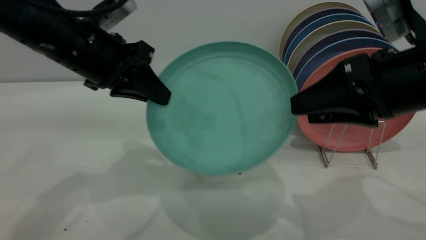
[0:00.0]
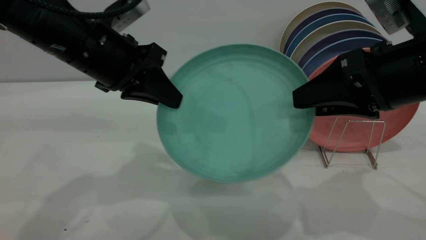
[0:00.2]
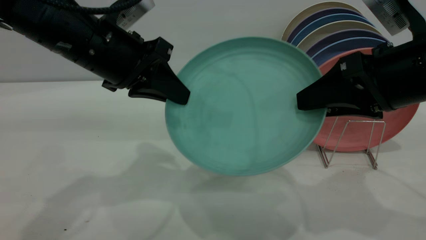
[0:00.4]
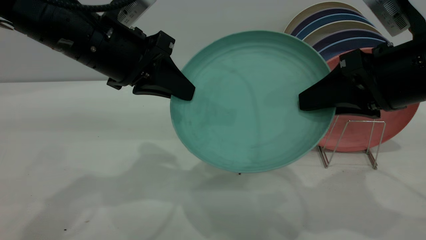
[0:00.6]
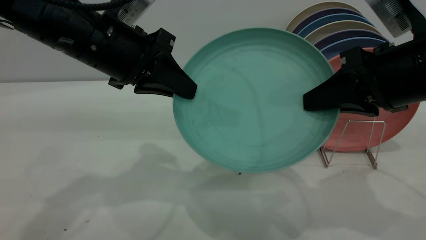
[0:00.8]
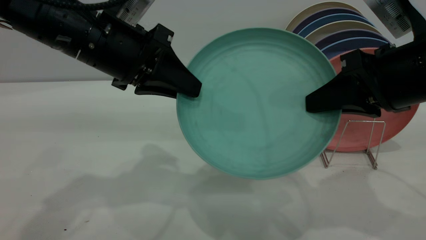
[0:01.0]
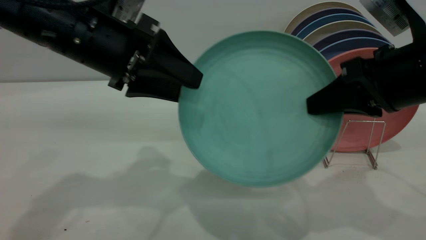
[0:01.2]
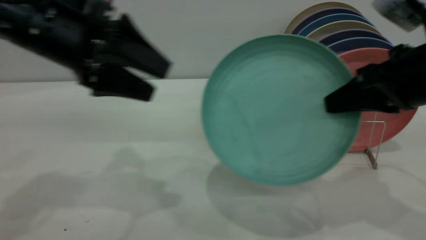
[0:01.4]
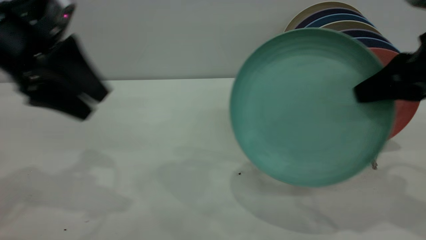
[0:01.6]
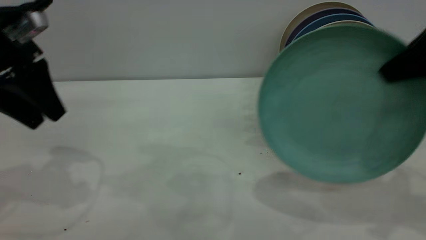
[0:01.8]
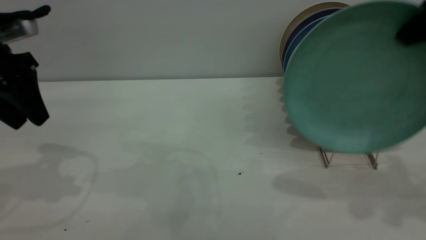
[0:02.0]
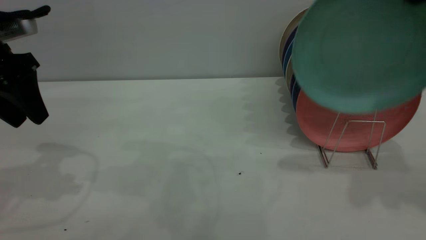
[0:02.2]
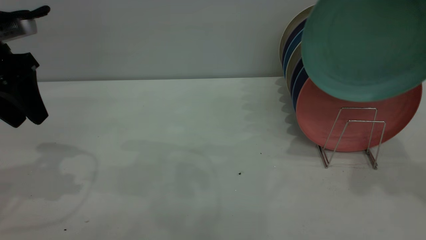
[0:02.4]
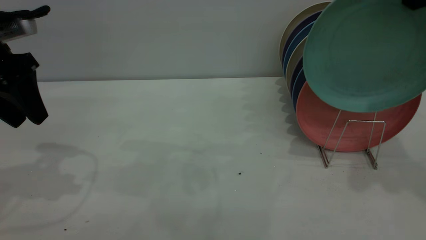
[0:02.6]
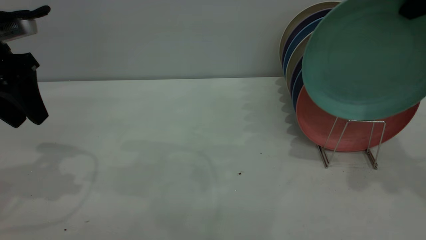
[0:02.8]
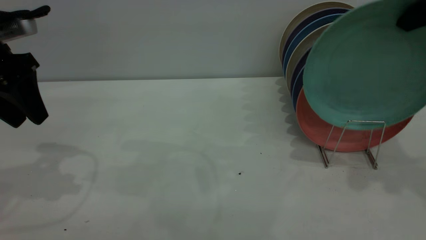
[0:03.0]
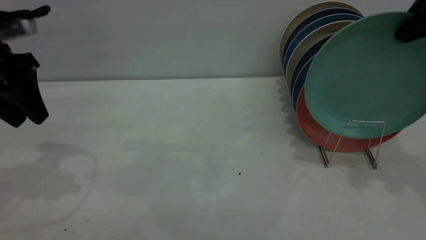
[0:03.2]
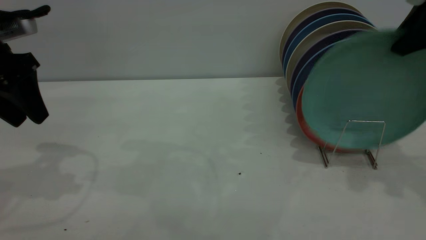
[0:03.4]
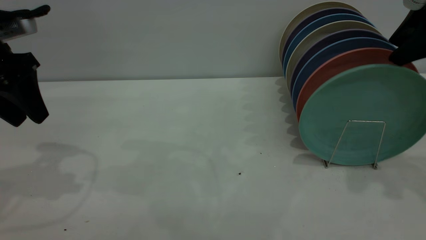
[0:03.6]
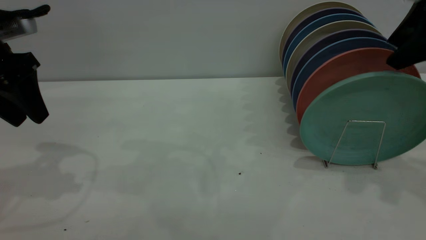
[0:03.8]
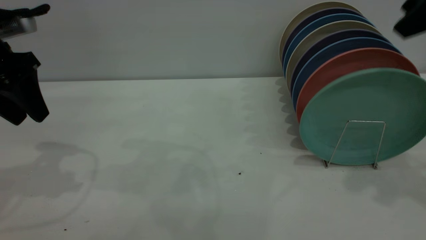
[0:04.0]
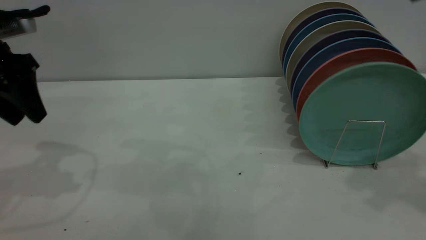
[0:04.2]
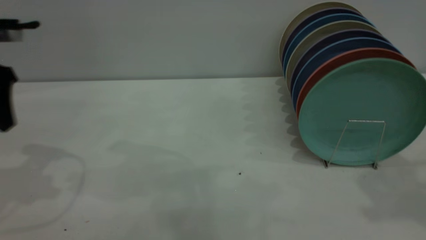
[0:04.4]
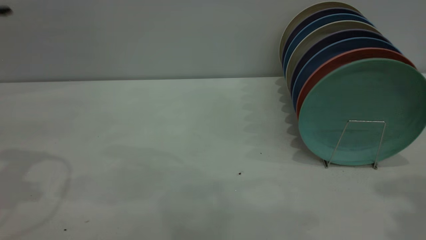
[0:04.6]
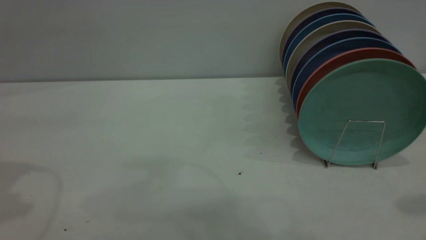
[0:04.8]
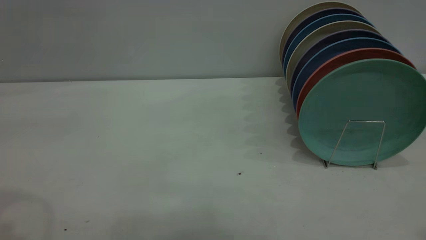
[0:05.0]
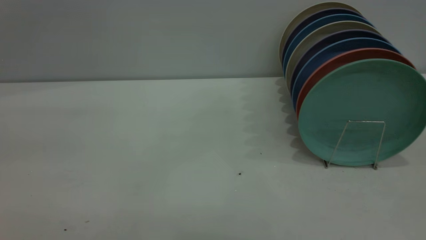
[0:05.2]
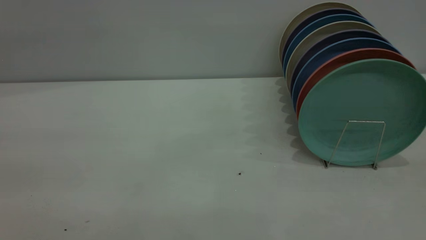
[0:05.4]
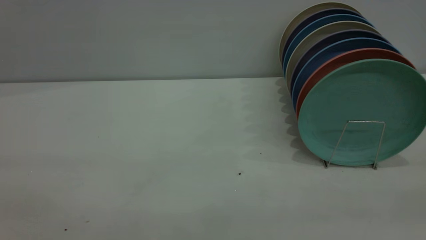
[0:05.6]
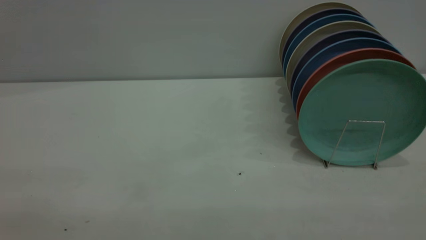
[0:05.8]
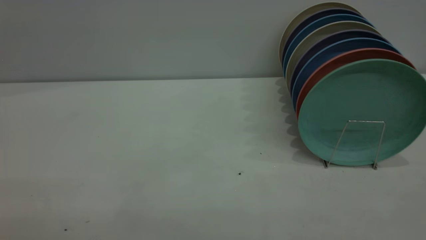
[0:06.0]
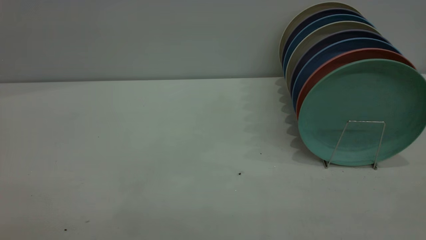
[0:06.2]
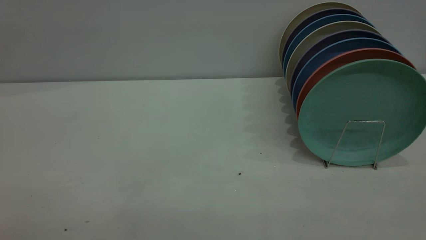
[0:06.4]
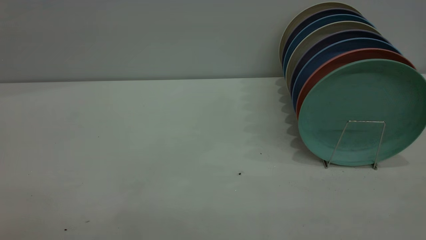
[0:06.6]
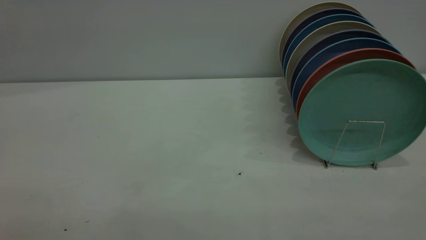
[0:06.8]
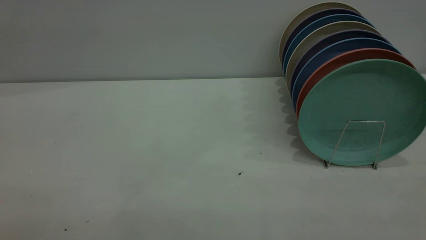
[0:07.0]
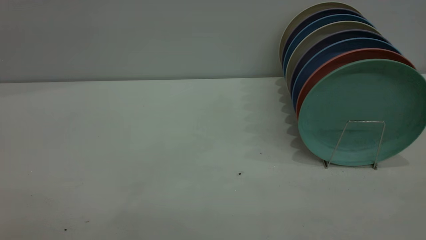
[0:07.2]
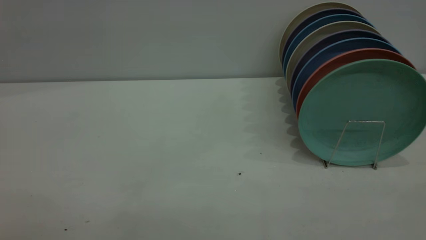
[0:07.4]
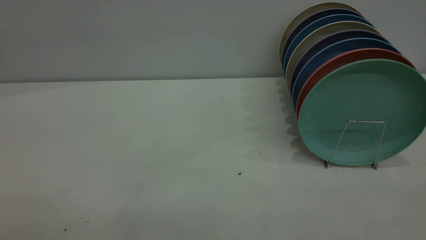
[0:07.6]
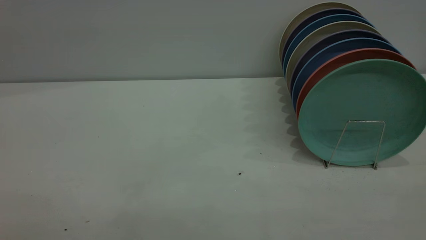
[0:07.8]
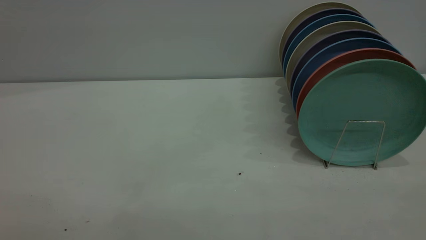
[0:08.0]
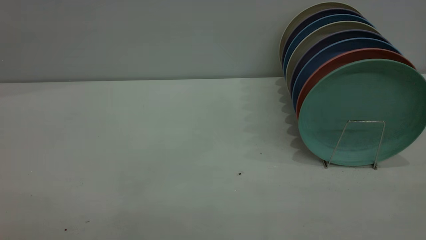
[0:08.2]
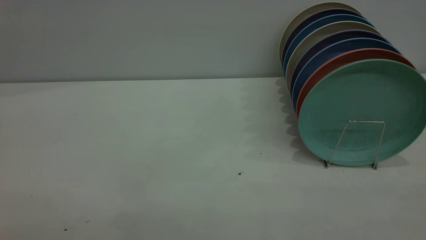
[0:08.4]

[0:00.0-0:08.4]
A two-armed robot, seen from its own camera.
Task of the whole recording: the left gripper grasp the green plate, the left gripper pass the green plate to the right gripper, and the right gripper place the green plate on the plate rack.
Step, 0:00.0 to 0:01.2: Pass the plate from the left gripper to the right gripper.
Step, 0:01.6 to 0:03.8: Place the plate on the shelf.
0:00.0 to 0:01.4: The right gripper closes up. Meanwhile the left gripper opens.
0:01.4 to 0:02.8: The left gripper shifts about 10 cm to the left, while the right gripper is displaced upward and forward by some 15 cm.
0:02.8 to 0:04.2: The right gripper goes roughly 5 cm upward, and opens its fingers.
0:04.2 to 0:05.6: The left gripper goes approximately 40 cm backward and upward.

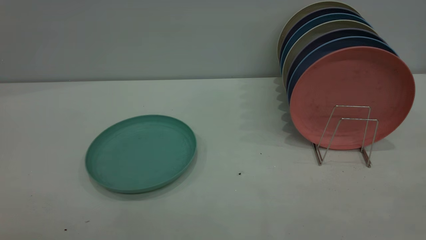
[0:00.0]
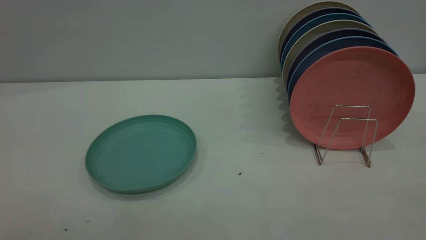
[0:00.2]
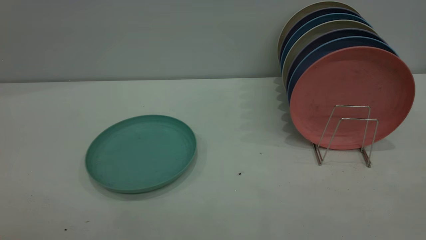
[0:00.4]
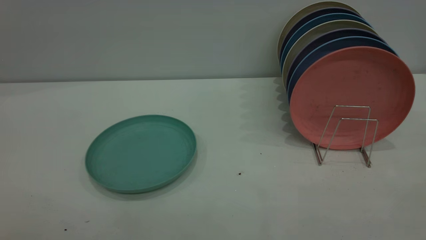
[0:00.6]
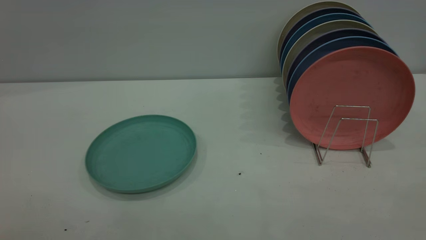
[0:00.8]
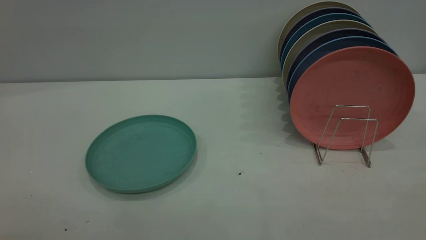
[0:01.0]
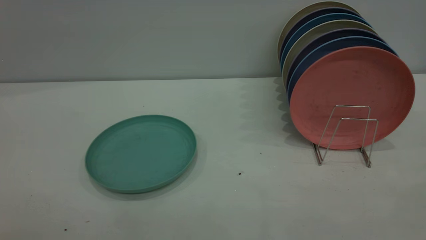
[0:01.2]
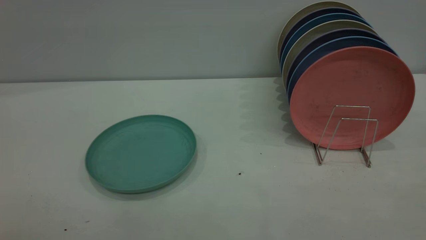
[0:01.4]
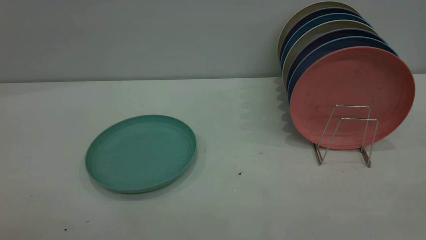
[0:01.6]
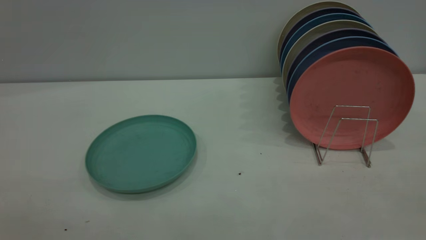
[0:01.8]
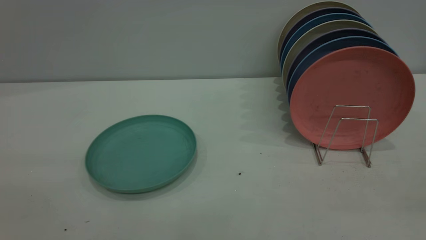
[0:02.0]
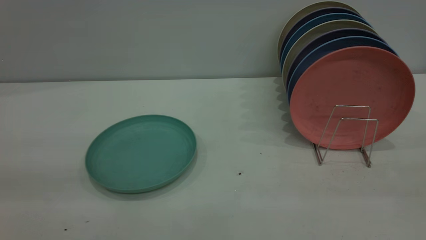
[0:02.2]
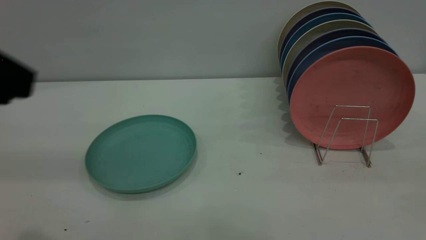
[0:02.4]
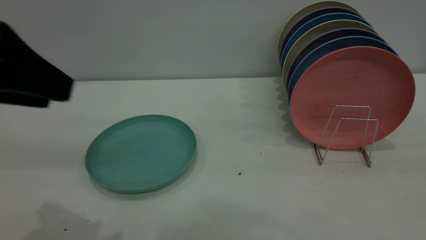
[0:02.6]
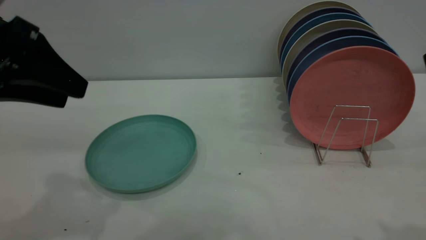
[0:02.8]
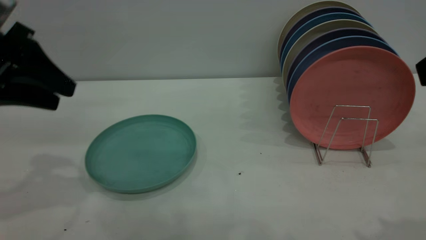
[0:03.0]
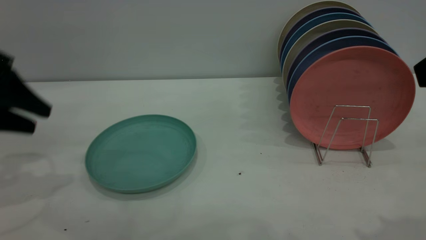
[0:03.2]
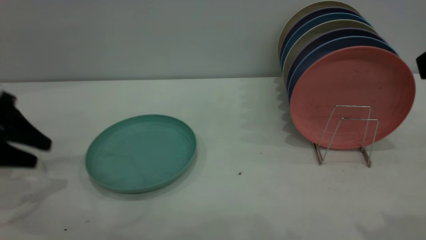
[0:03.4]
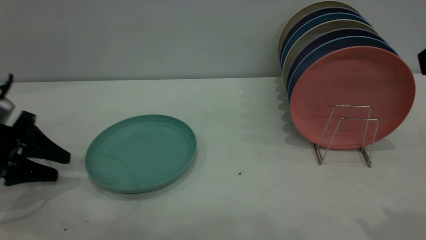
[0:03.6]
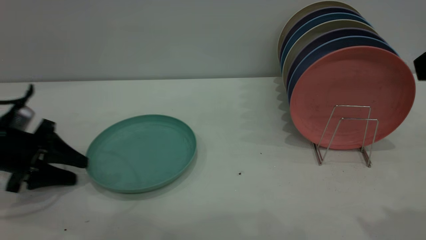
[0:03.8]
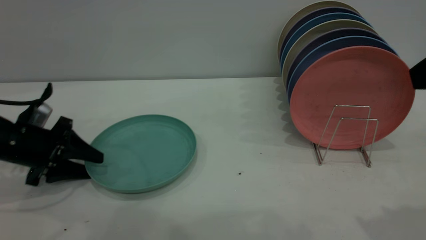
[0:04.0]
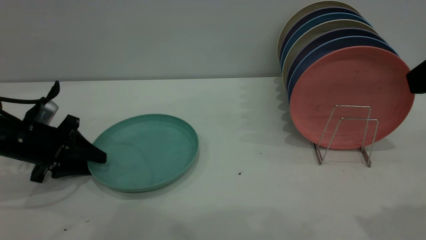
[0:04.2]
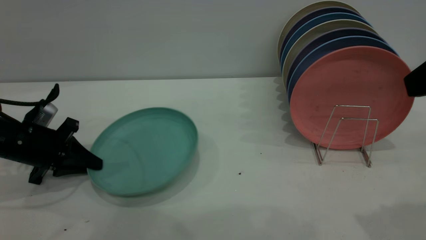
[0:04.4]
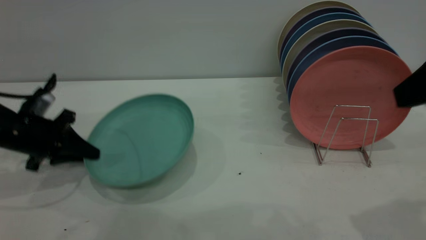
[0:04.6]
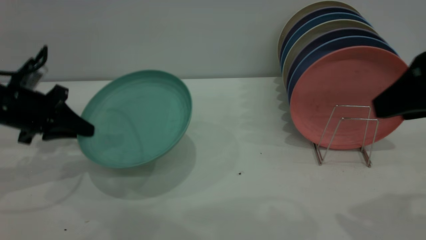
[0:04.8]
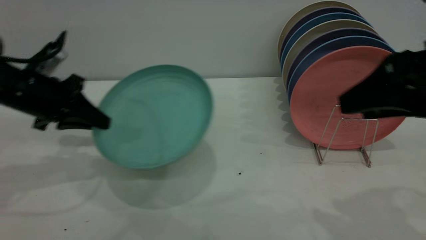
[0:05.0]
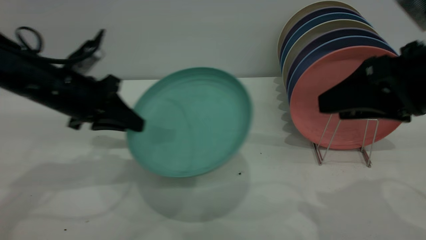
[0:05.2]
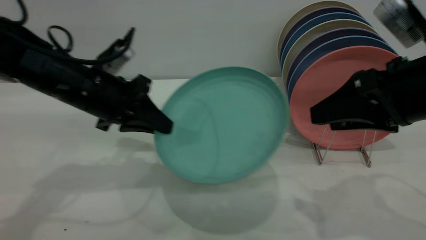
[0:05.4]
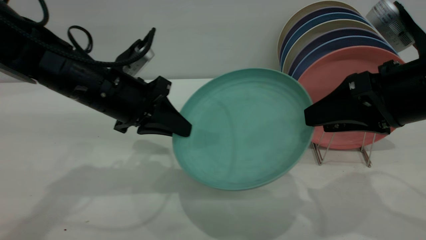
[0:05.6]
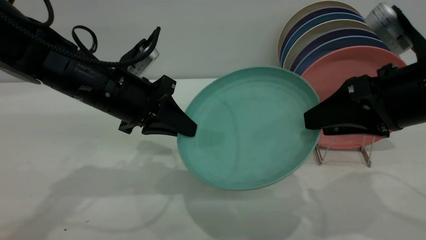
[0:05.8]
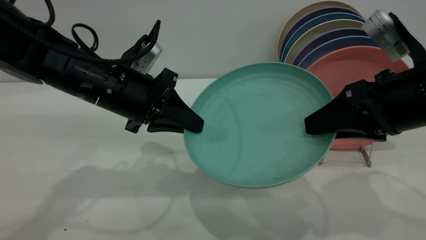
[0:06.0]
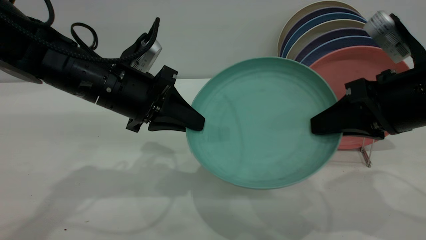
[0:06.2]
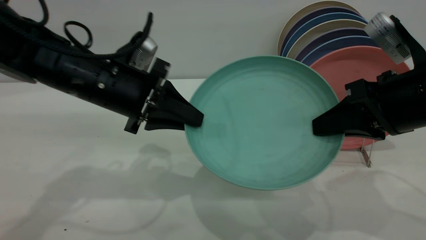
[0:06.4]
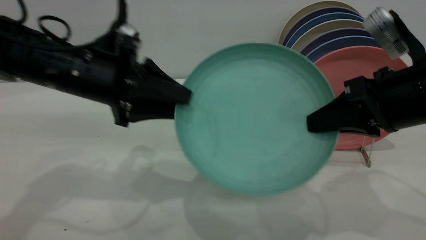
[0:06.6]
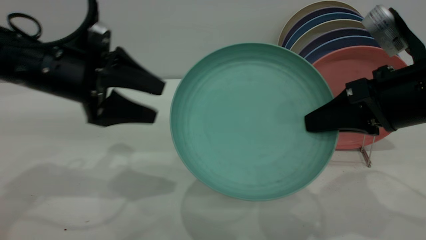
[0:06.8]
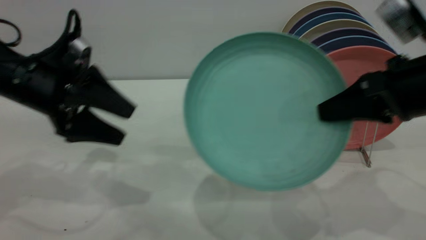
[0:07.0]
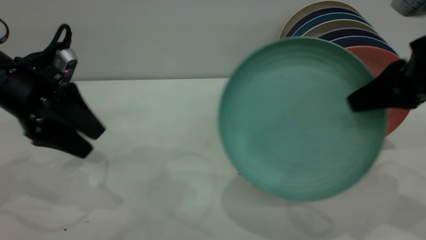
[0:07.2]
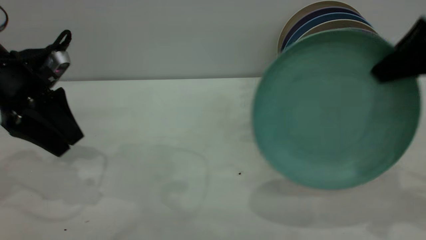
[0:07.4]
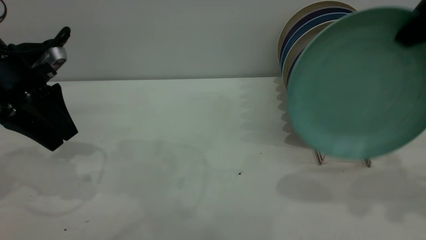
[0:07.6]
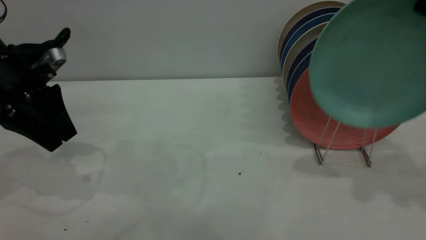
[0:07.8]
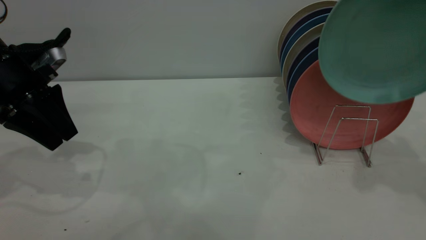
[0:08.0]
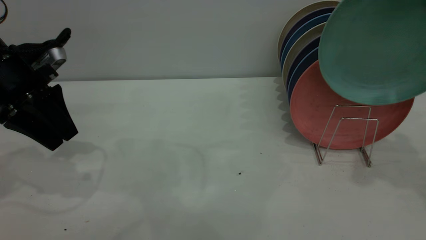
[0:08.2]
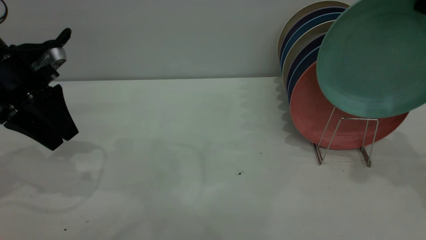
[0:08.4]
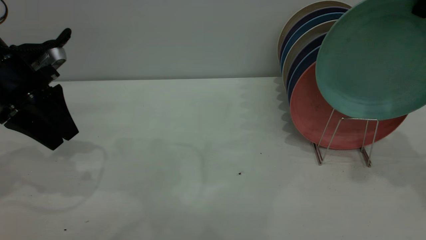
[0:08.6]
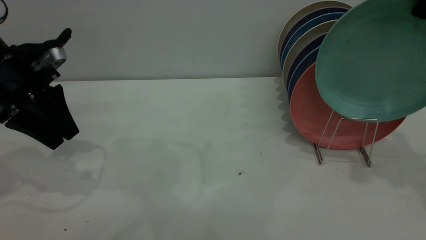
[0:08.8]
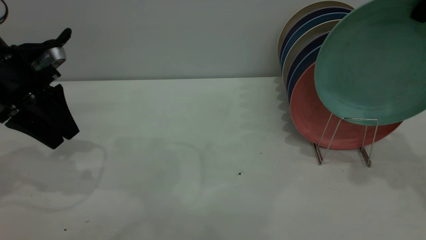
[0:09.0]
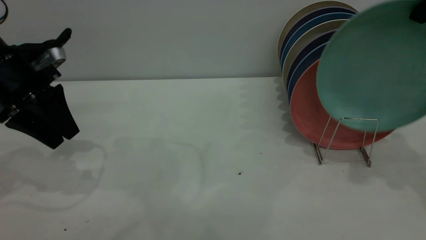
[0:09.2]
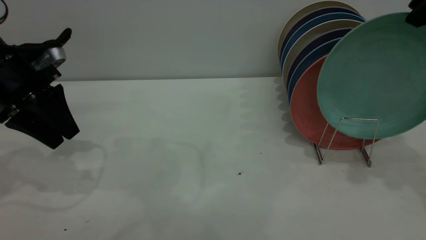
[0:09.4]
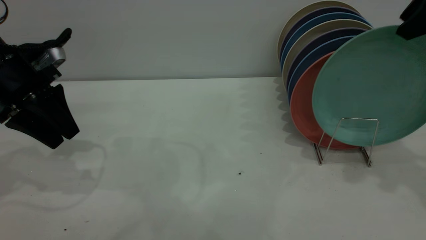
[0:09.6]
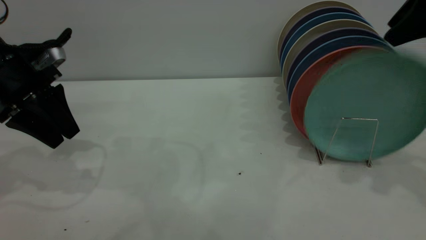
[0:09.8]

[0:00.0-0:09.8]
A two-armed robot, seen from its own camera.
Task of the whole recording: the left gripper grasp the green plate, the left gripper pass the green plate to the right gripper, and the right gripper place the green plate on the plate rack.
Step, 0:00.0 to 0:04.6: Pick up the plate with the left gripper.
Step, 0:04.8 to 0:06.8: Pass the plate from the left gripper to the right gripper.
0:00.0 to 0:01.4: Neither gripper changes place.
0:01.4 to 0:02.8: The left gripper shifts about 30 cm forward.
0:02.8 to 0:04.2: The left gripper heads downward, covering some 20 cm.
0:04.2 to 0:05.6: The right gripper heads downward and forward, covering some 10 cm. Meanwhile the left gripper goes about 20 cm to the right and upward, and closes its fingers.
0:05.6 to 0:07.0: The right gripper closes its fingers. Meanwhile the left gripper moves to the left, some 10 cm, and opens.
0:07.0 to 0:08.4: The right gripper heads upward, forward and to the right, covering about 15 cm; the left gripper moves approximately 5 cm.
0:08.4 to 0:09.8: The right gripper opens its fingers.
